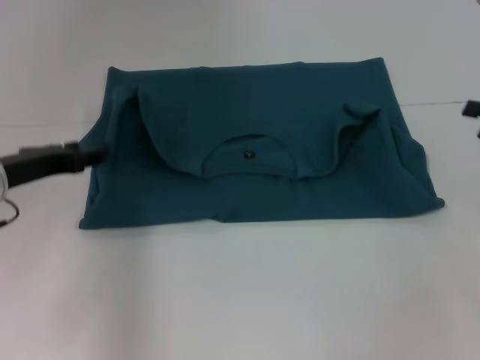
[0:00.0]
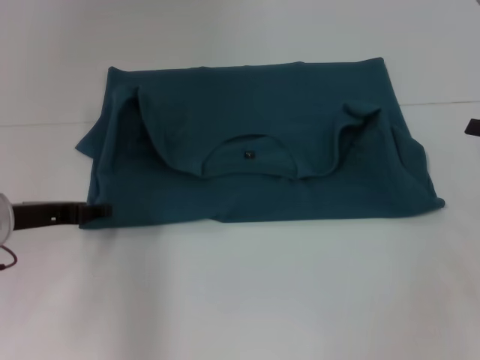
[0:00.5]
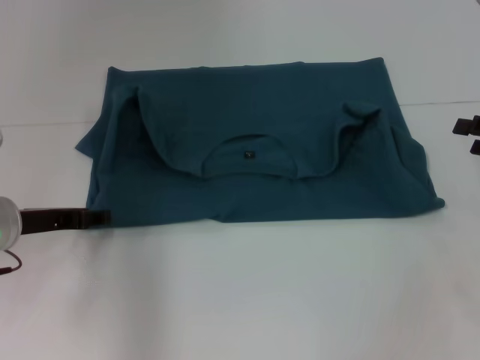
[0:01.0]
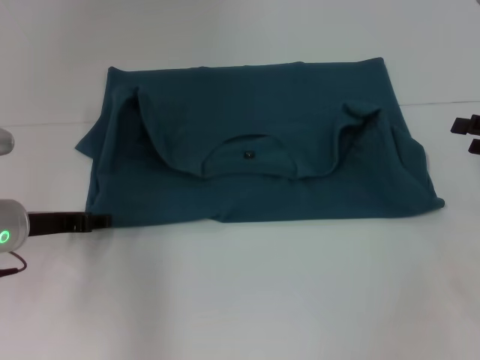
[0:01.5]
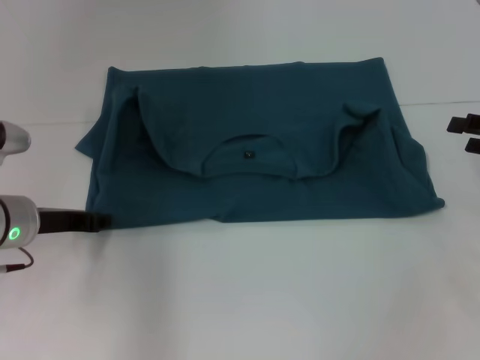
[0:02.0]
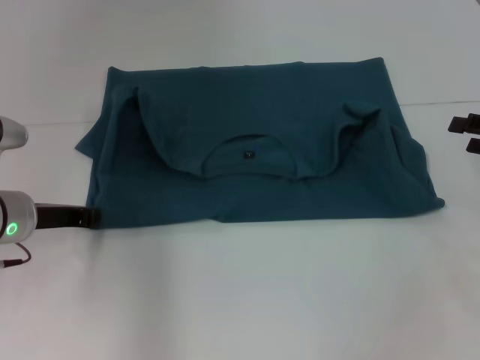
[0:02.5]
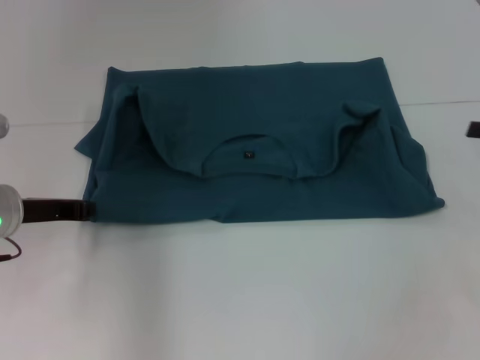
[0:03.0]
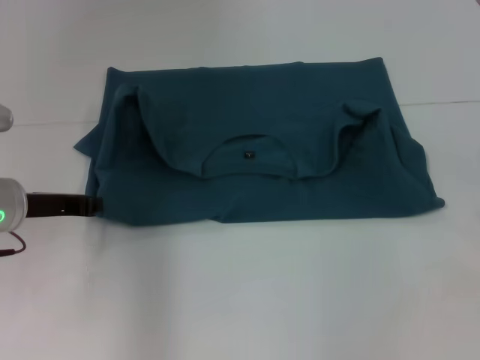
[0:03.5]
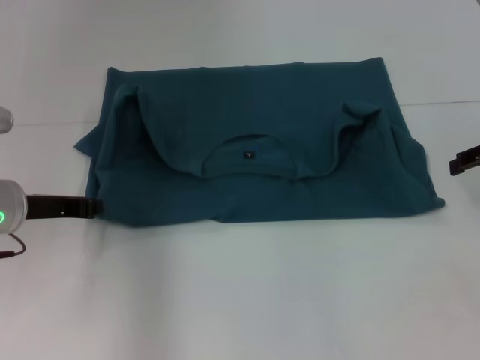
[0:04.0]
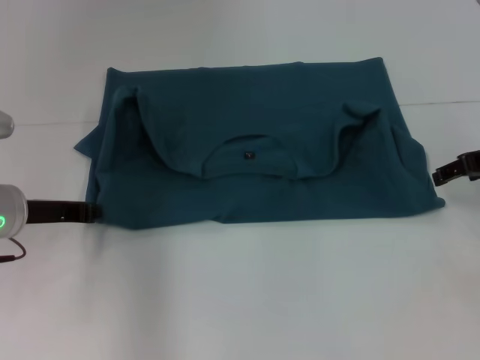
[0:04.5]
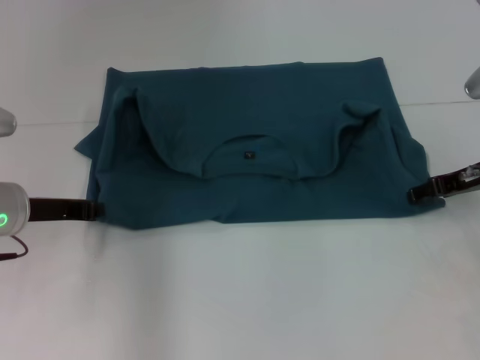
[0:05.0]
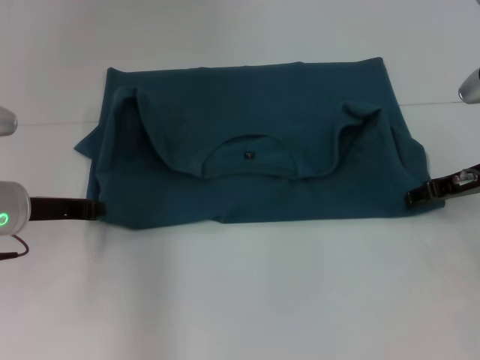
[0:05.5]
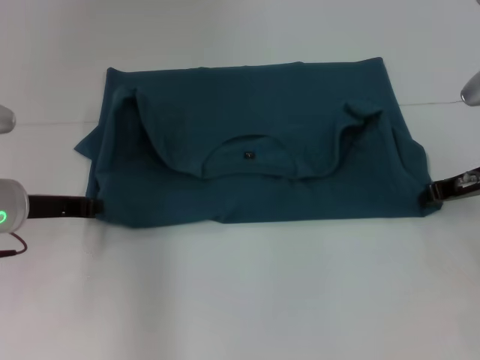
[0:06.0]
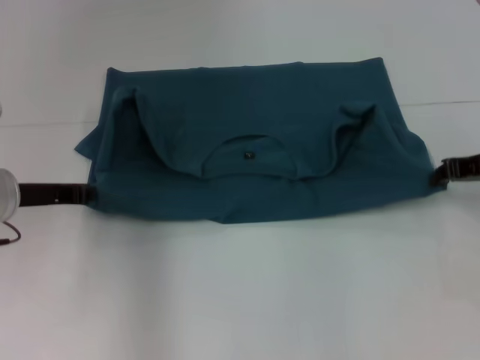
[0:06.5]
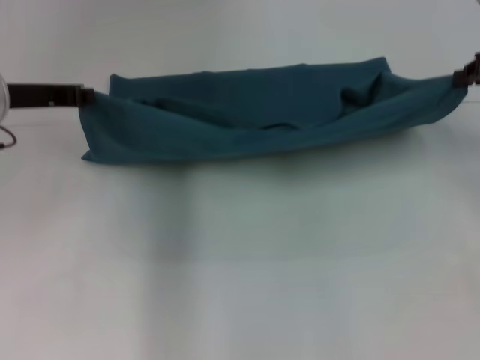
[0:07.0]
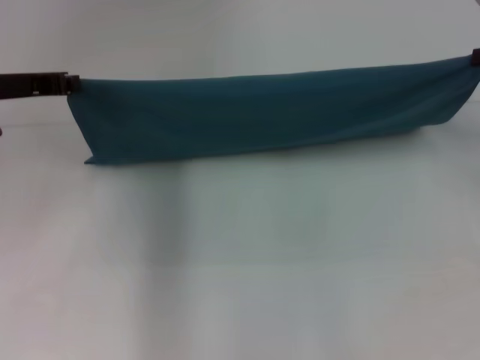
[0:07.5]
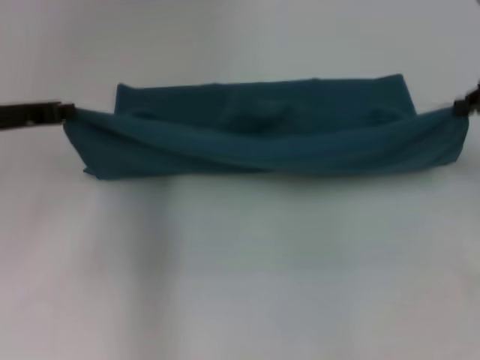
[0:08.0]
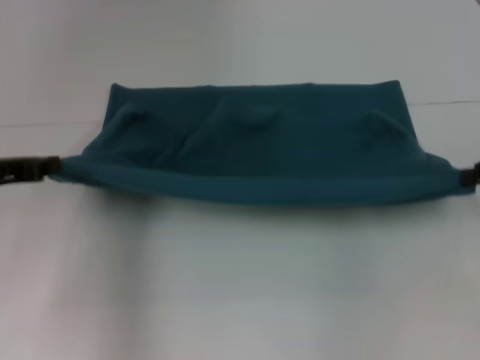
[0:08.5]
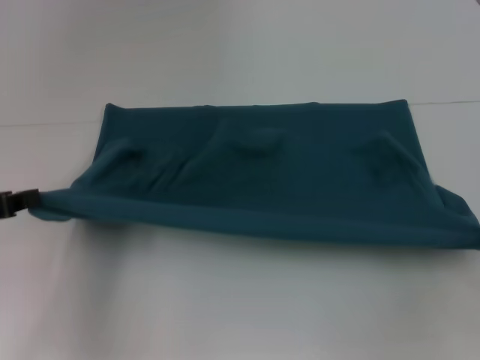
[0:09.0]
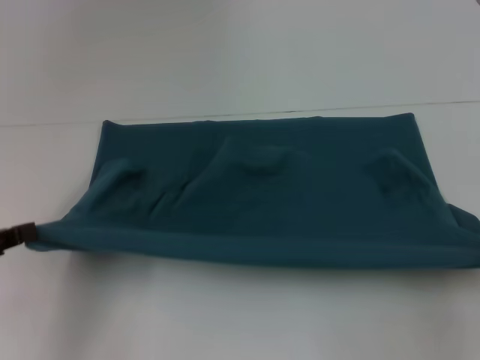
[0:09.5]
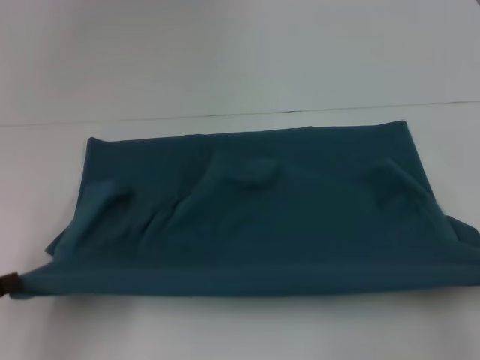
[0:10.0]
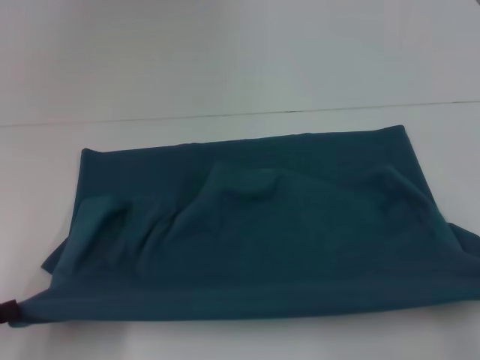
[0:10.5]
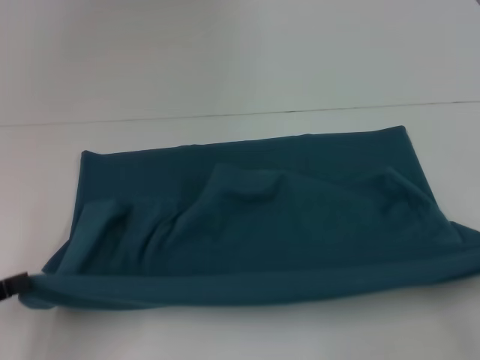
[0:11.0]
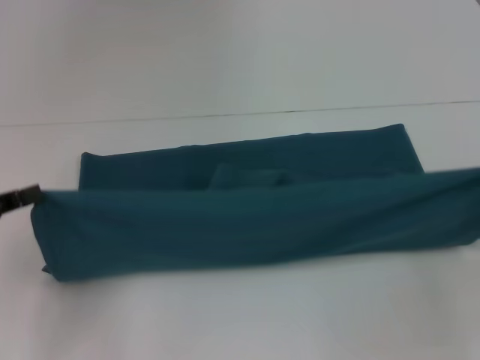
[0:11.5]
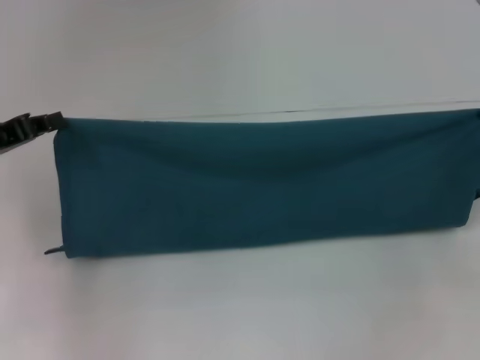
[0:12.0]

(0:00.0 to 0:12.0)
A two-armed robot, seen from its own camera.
Step, 0:00.0 - 0:10.0: Pull the clothes with your left hand.
Step, 0:00.0 - 0:10.0: Pull the clothes with your right hand.
0:00.0 - 0:02.0: There are only small adjustments of the grippers.
0:02.0 - 0:04.0: The right gripper shifts by some 5 cm. The left gripper closes up.
0:04.0 - 0:06.0: The right gripper heads downward and to the left, covering some 10 cm, and closes up.
0:06.0 - 0:08.0: The two grippers go roughly 10 cm upward. The right gripper closes its fingers.
0:08.0 - 0:10.0: The left gripper travels backward by about 20 cm; the right gripper heads backward and downward, covering about 20 cm.
0:10.0 - 0:12.0: The grippers both shift forward by approximately 15 cm.

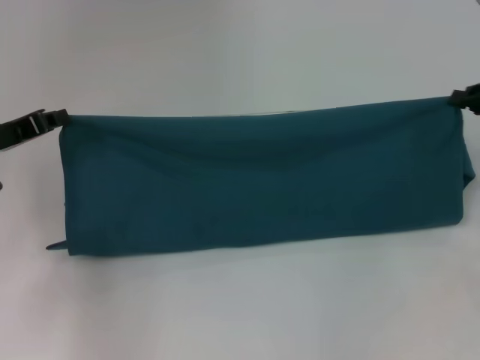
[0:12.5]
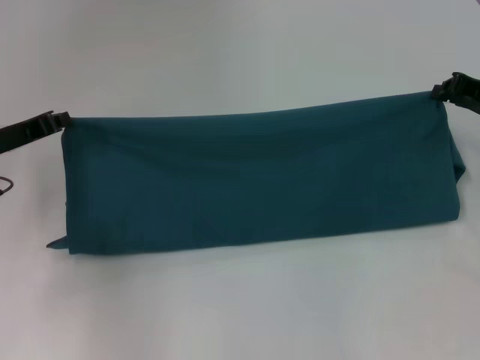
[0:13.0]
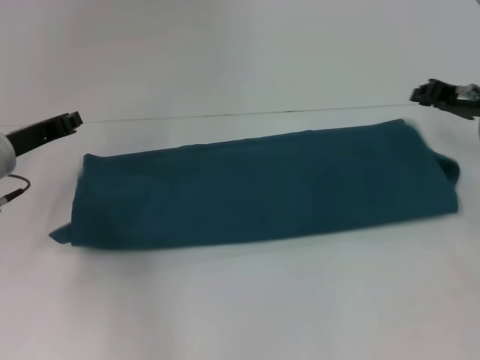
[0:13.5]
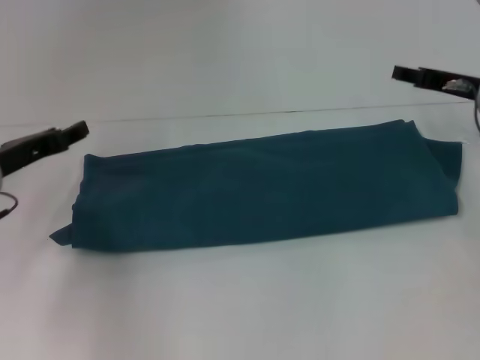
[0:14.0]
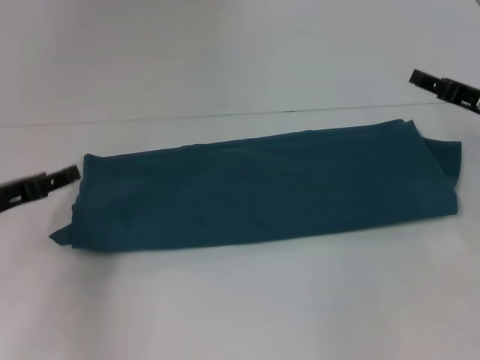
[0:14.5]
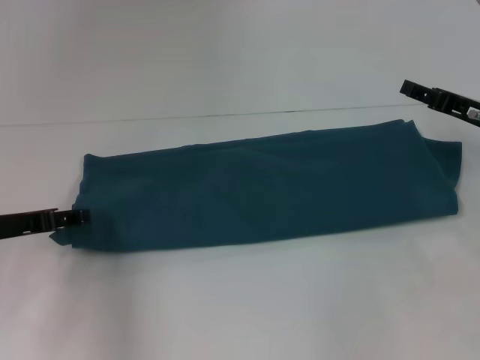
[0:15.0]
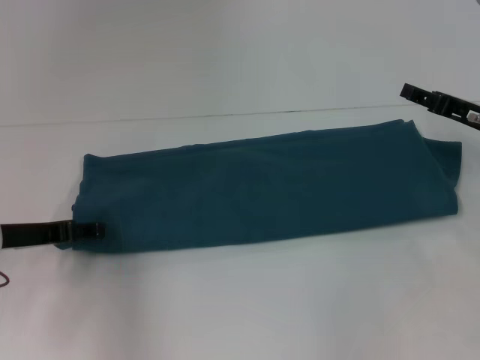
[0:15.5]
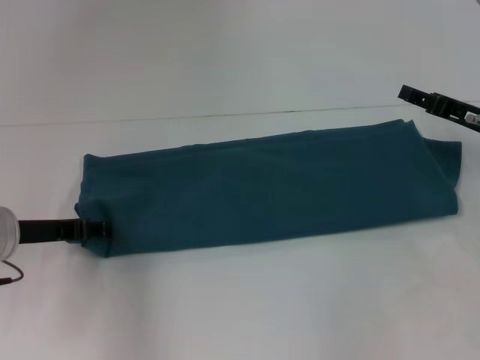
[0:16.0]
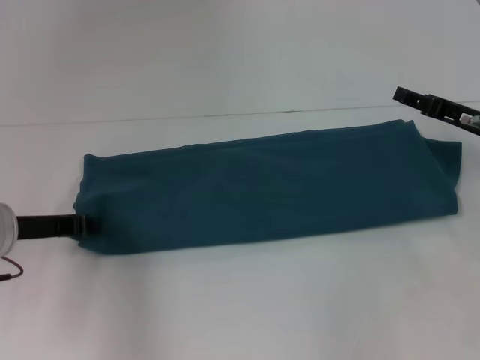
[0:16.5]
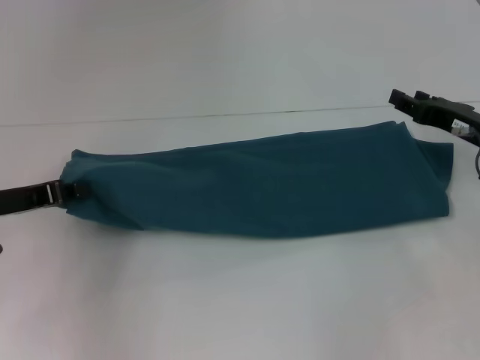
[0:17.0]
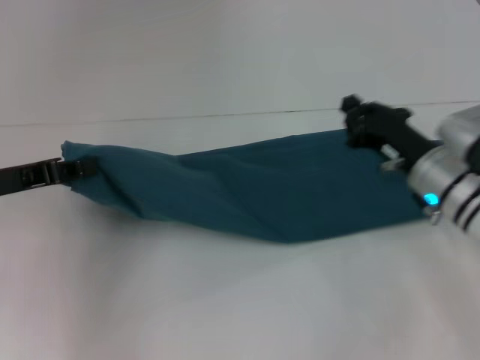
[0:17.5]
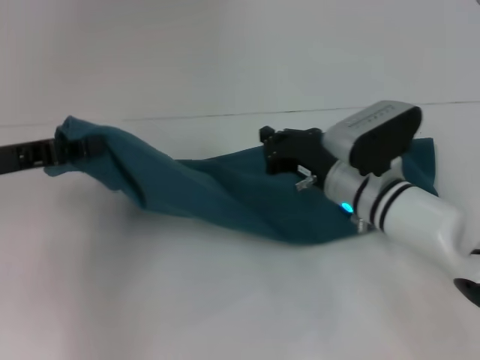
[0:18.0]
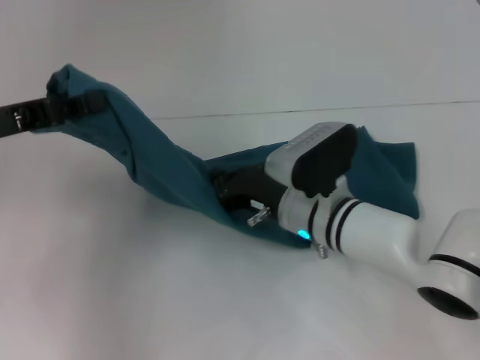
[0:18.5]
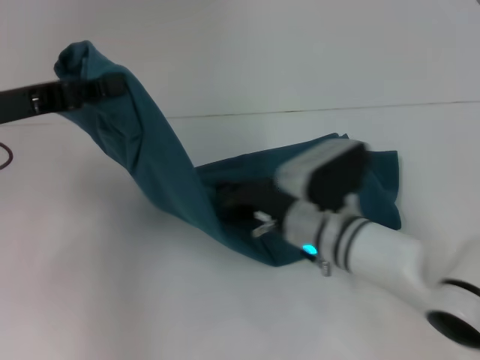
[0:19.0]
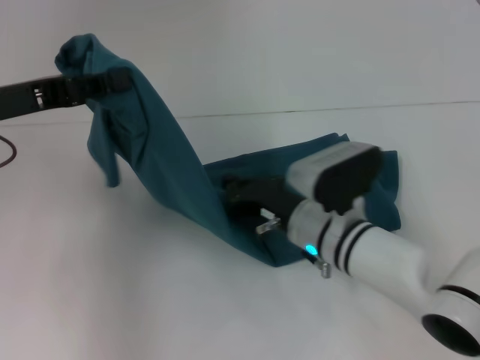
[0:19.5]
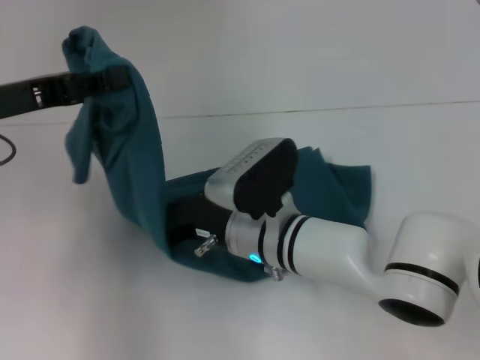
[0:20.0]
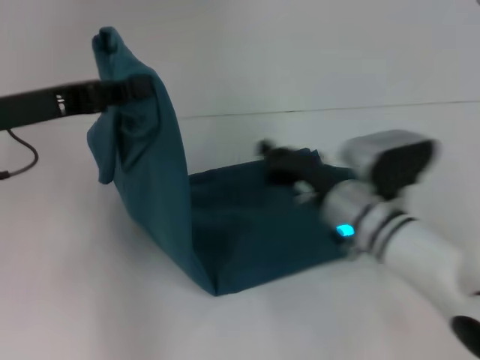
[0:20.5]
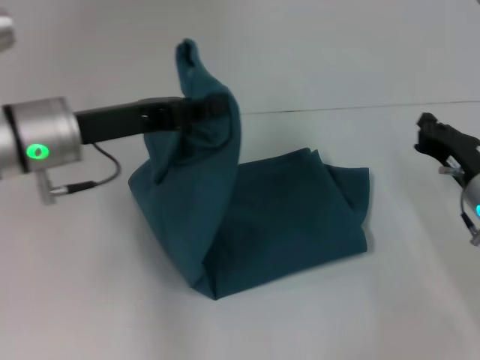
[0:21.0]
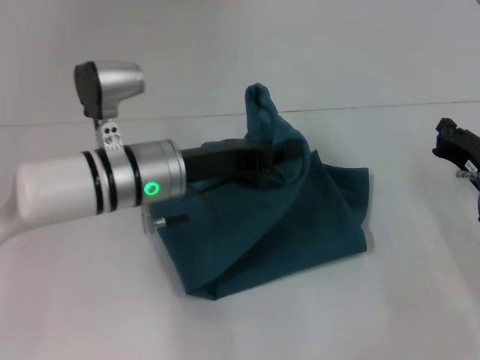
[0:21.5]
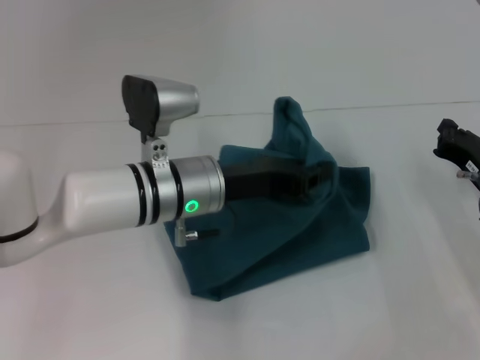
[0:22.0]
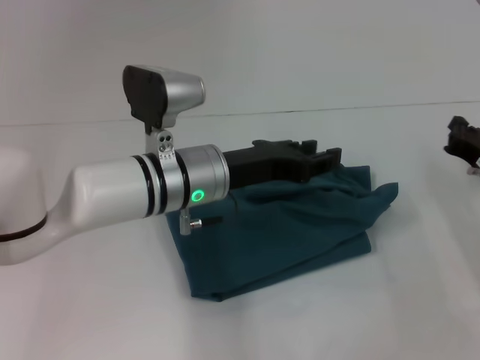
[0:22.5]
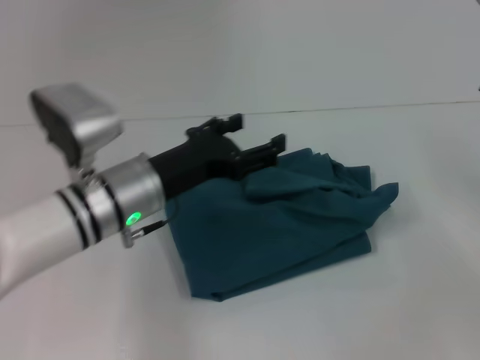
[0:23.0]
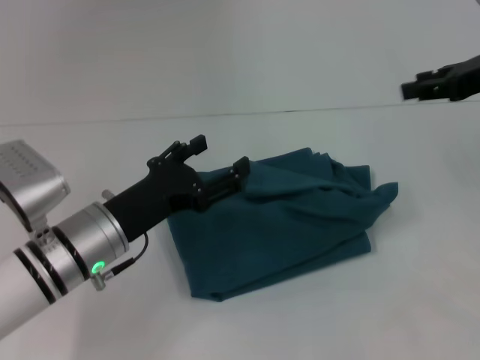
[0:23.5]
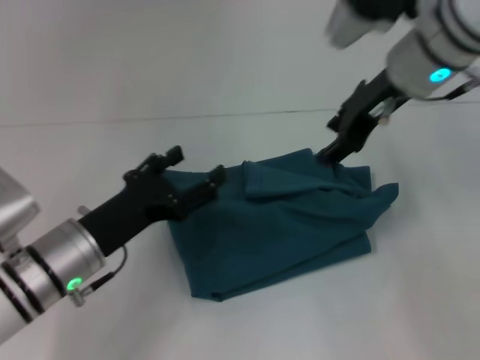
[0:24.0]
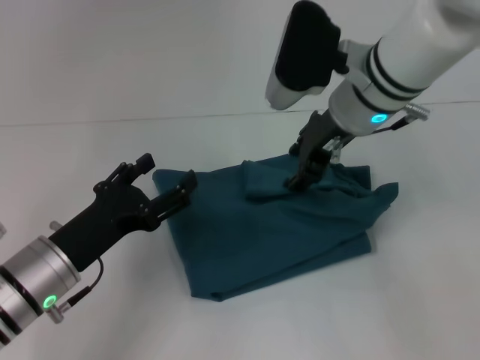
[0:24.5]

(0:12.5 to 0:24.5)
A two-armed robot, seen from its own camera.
Step, 0:14.0 - 0:20.0: Press the middle of the clothes with your right hand.
Step, 0:20.5 - 0:22.0: Fold the clothes to the left.
0:12.5 - 0:14.5: The left gripper heads backward, covering roughly 5 cm, and opens its fingers. Meanwhile the right gripper opens up.
0:14.5 - 0:16.5: The left gripper closes up.
0:16.5 - 0:18.5: The right gripper heads to the left, covering about 20 cm, and closes its fingers, while the left gripper is displaced upward by some 10 cm.
0:20.5 - 0:22.5: The left gripper heads to the right and downward, covering some 20 cm. Meanwhile the right gripper goes about 15 cm to the right.
0:22.5 - 0:24.5: The right gripper moves to the left, upward and forward, roughly 25 cm, and opens up. The left gripper moves to the left, backward and downward, approximately 15 cm, and opens.

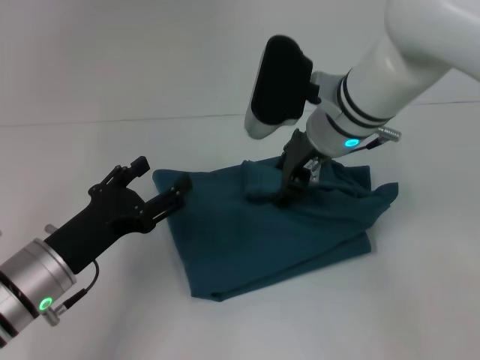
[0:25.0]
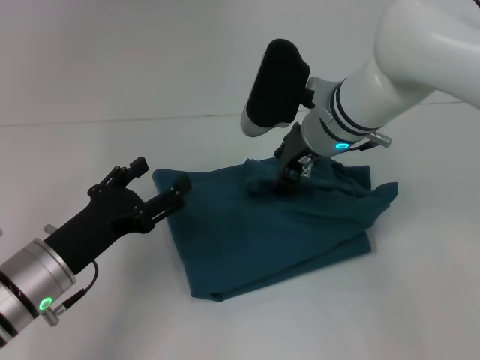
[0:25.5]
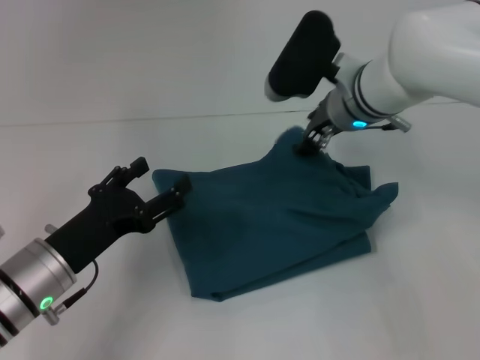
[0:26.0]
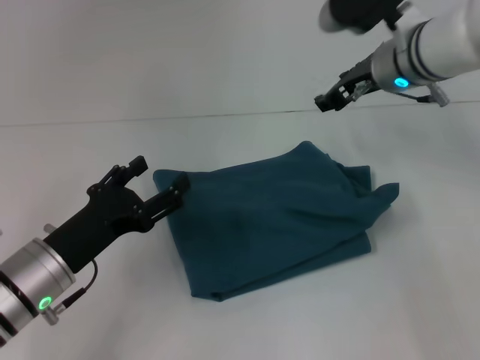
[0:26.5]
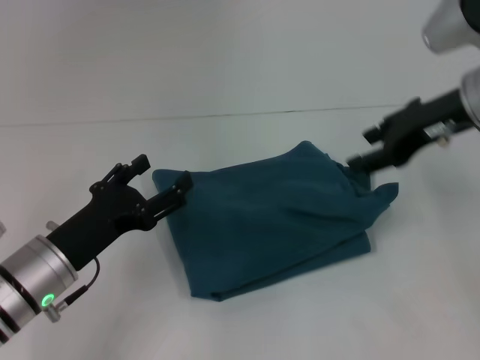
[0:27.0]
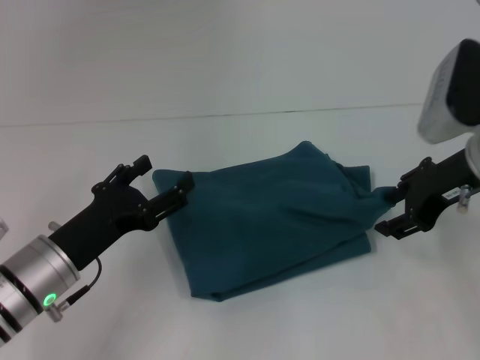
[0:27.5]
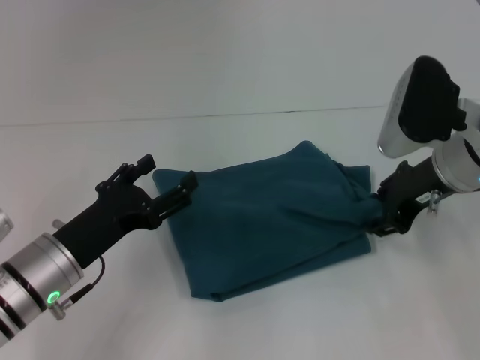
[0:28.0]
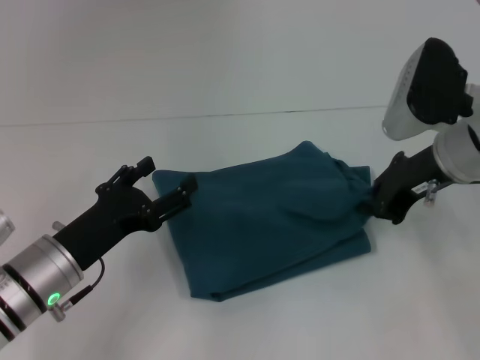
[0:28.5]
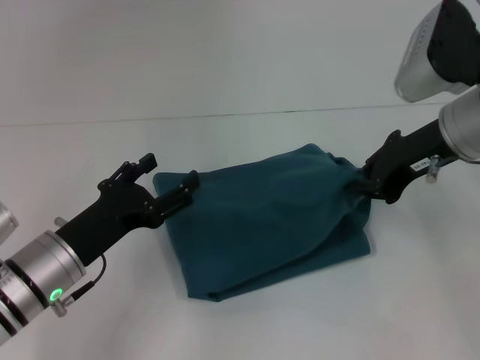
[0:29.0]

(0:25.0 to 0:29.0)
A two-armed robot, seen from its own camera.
0:25.0 - 0:27.0: The right gripper is displaced to the right by approximately 15 cm.
0:27.0 - 0:29.0: The right gripper closes its fingers.
